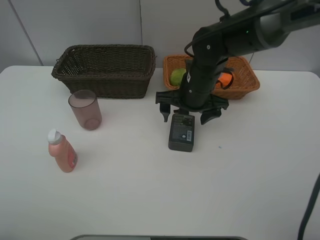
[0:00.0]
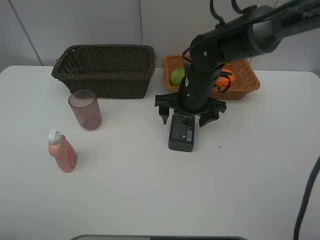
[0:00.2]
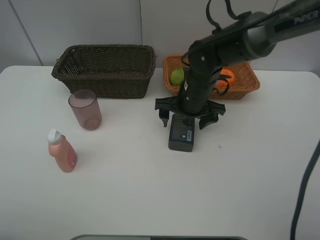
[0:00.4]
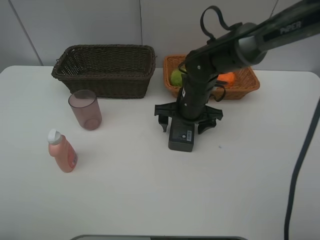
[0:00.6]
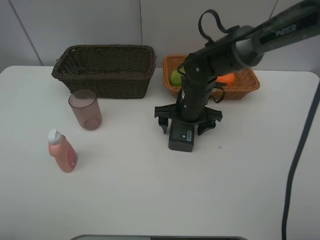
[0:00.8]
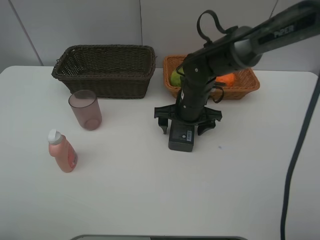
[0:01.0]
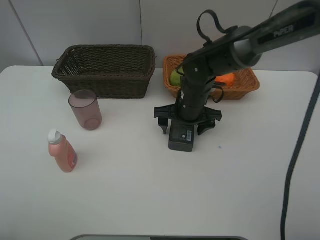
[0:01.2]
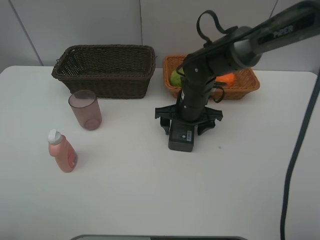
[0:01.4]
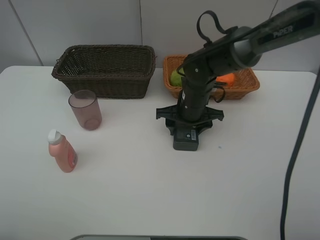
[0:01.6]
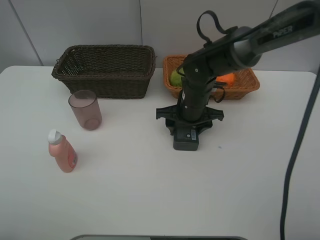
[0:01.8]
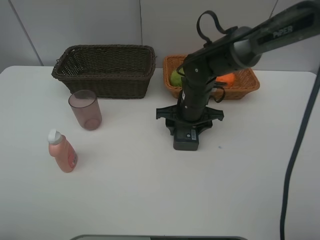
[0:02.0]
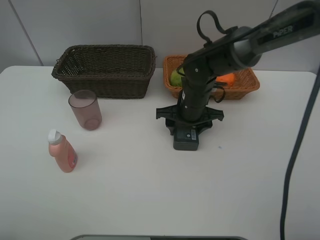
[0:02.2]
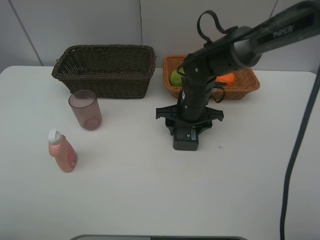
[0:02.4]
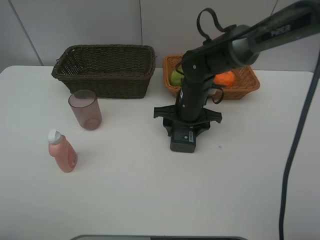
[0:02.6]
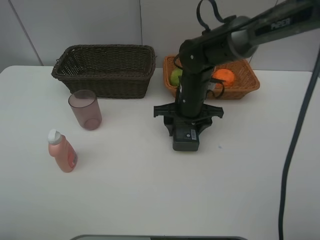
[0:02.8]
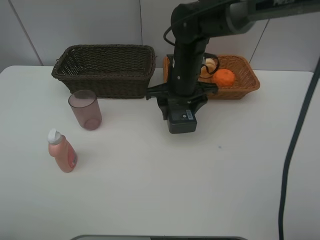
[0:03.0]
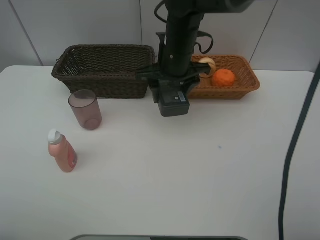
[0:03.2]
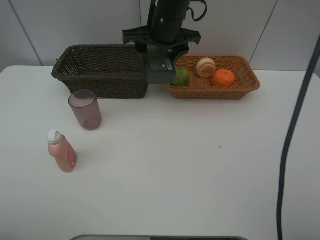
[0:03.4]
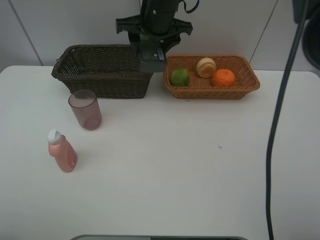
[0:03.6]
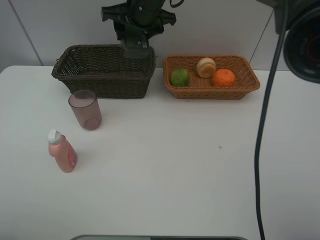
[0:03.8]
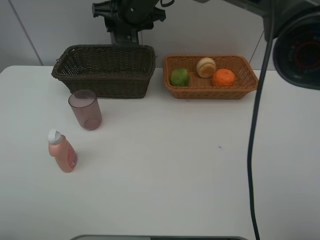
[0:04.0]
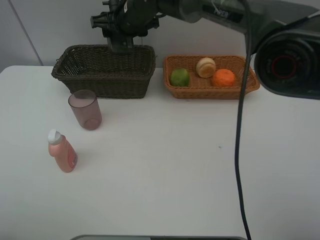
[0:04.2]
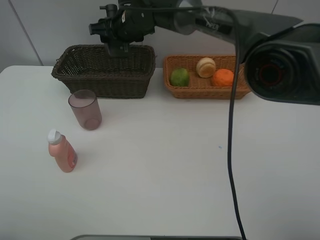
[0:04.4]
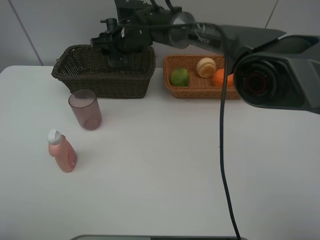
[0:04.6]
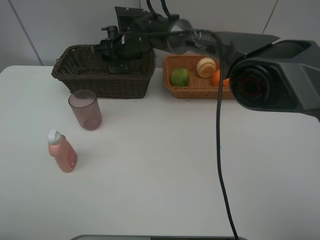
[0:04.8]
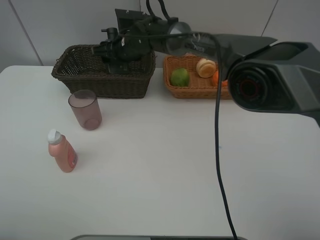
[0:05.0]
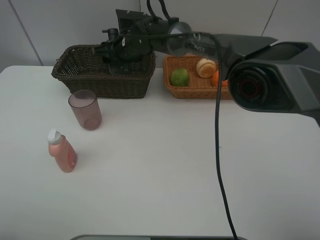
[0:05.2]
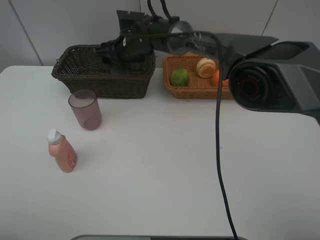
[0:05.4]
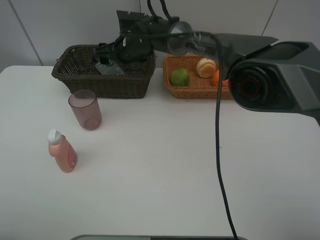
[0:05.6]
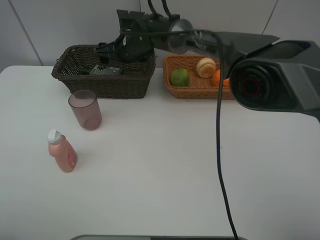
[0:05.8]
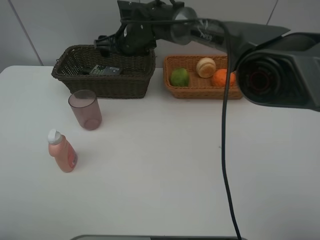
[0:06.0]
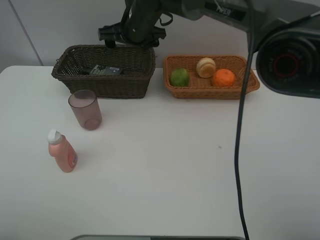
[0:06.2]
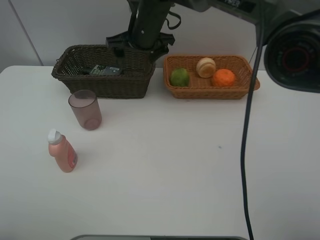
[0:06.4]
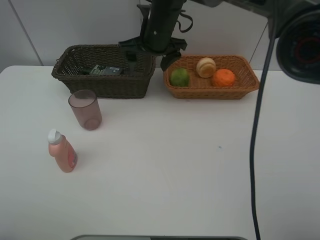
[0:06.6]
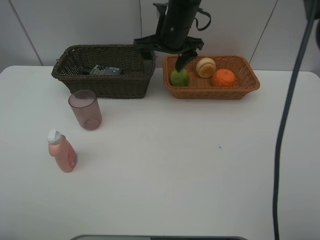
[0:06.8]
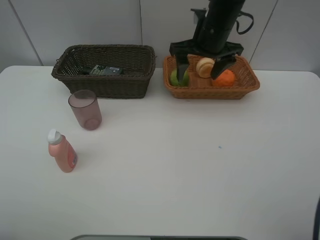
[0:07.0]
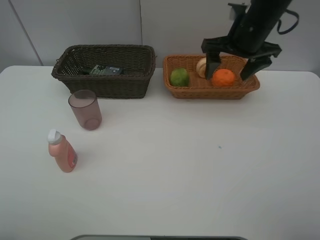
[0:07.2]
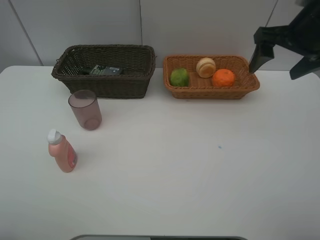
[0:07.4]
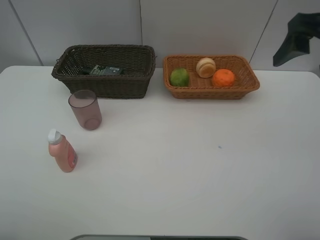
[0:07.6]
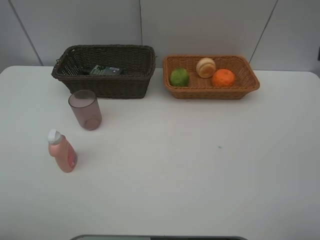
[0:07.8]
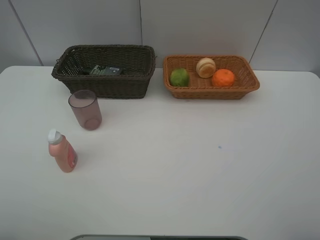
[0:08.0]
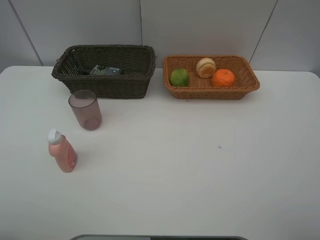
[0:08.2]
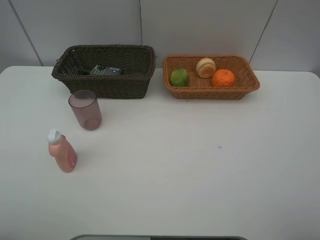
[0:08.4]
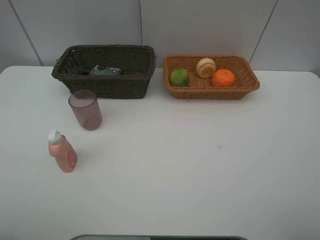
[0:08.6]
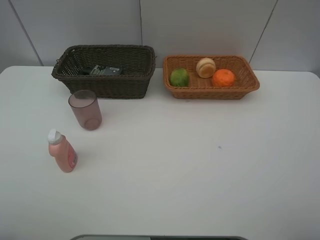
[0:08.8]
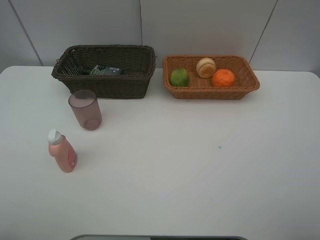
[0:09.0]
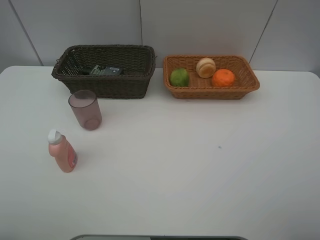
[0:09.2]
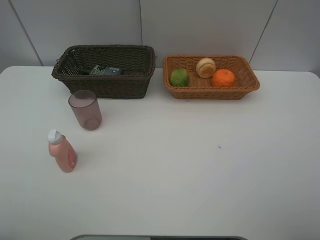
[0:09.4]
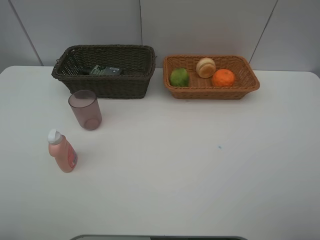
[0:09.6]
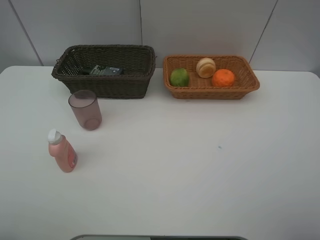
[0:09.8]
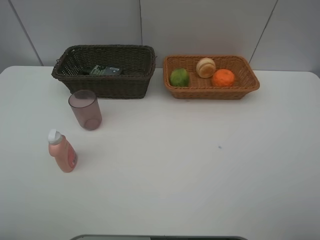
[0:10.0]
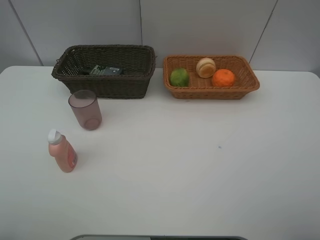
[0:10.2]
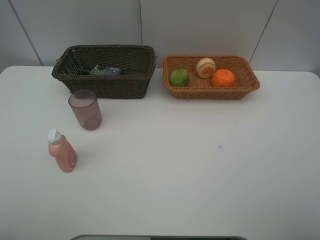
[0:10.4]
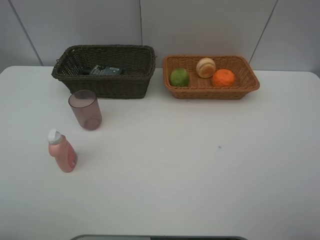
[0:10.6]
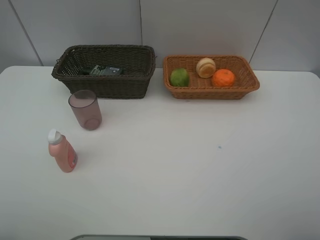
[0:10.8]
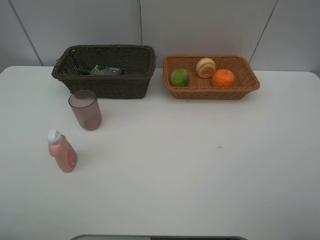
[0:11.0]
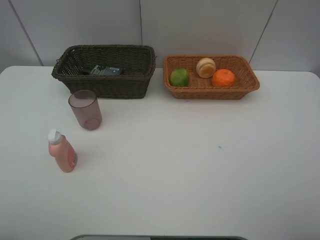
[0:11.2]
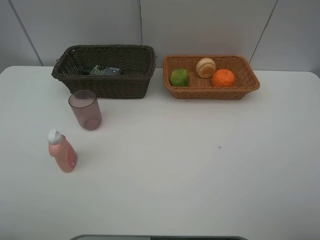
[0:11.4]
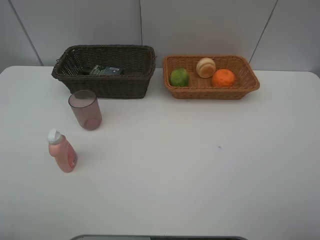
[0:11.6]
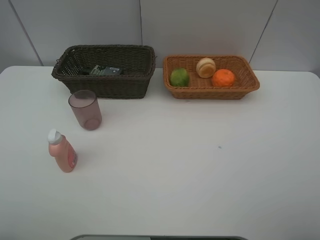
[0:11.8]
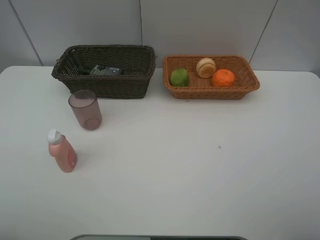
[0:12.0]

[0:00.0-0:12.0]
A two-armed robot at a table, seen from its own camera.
Task of the whole recording: place multiple objects separately in different baskets.
0:00.0 to 0:01.6: The right gripper moves downward, some 5 cm, and closes.
0:01.6 to 0:03.0: The right gripper heads upward, covering about 10 cm.
0:03.0 to 0:04.4: The right gripper heads to the left and forward, covering approximately 15 cm.
0:04.4 to 0:06.0: The right gripper opens.
0:06.0 to 0:07.6: The right gripper goes about 40 cm to the right, backward and upward.
0:07.6 to 0:09.0: The right gripper travels backward by roughly 25 cm.
0:10.4 to 0:12.0: The two grippers keep their place.

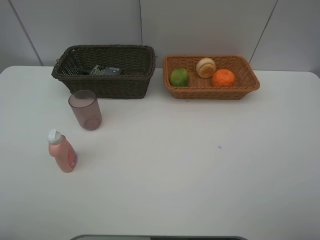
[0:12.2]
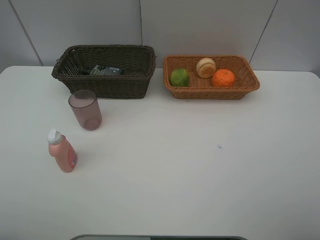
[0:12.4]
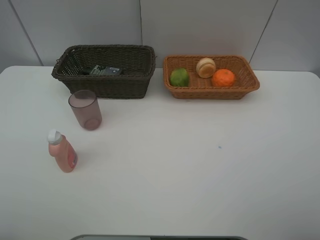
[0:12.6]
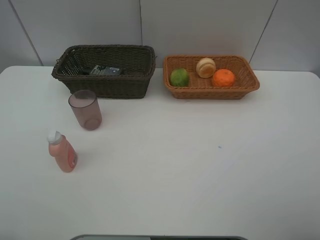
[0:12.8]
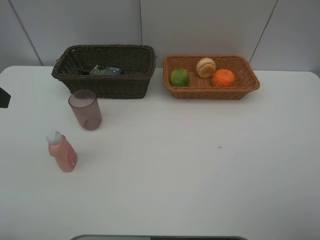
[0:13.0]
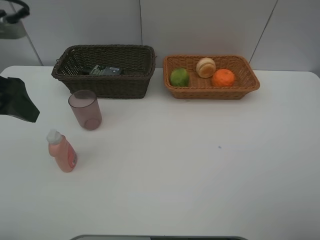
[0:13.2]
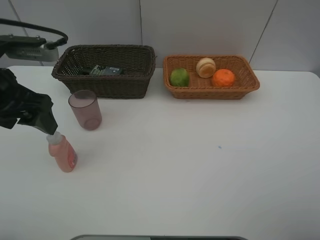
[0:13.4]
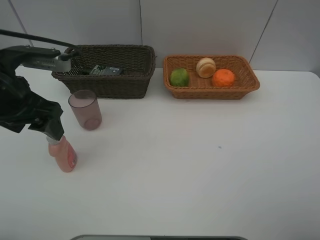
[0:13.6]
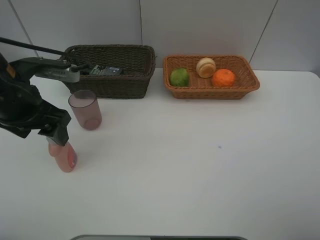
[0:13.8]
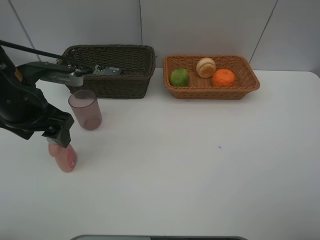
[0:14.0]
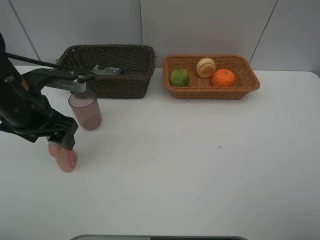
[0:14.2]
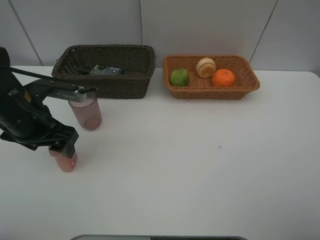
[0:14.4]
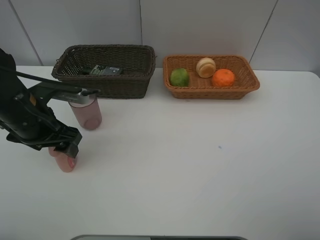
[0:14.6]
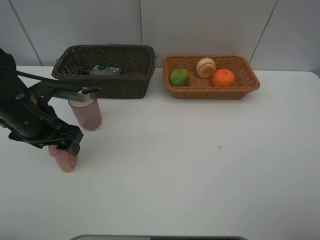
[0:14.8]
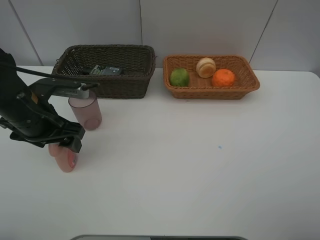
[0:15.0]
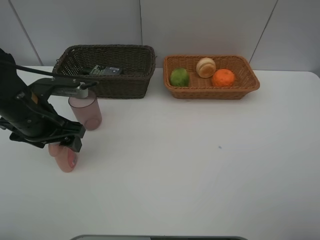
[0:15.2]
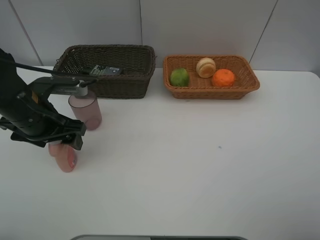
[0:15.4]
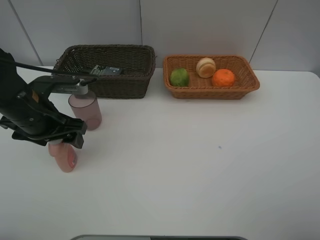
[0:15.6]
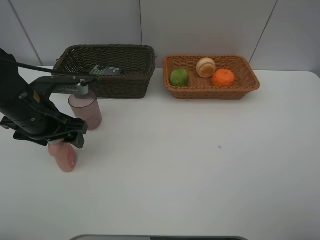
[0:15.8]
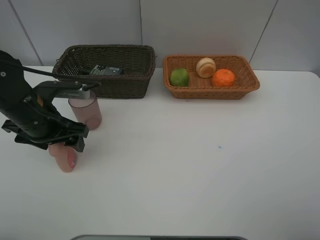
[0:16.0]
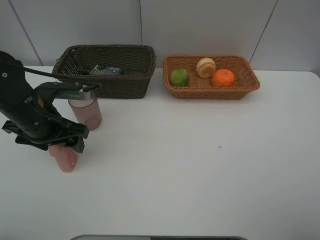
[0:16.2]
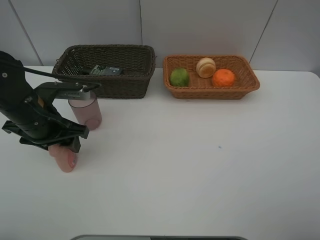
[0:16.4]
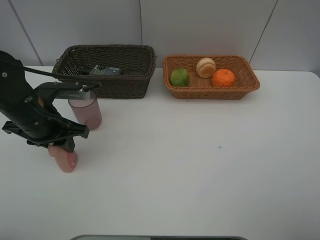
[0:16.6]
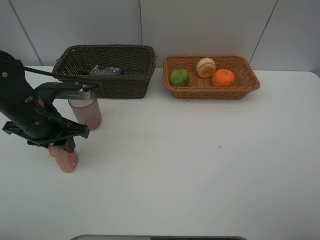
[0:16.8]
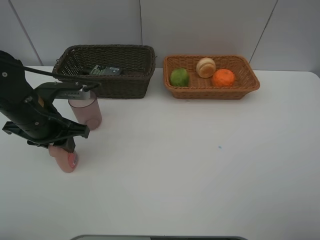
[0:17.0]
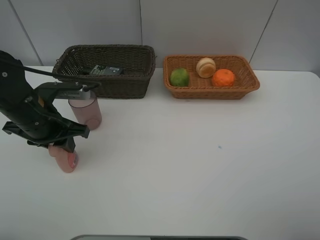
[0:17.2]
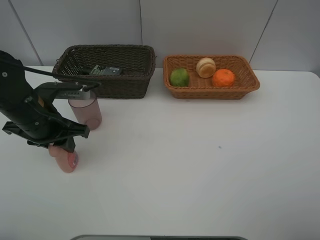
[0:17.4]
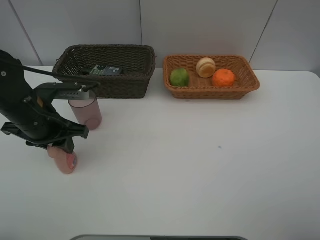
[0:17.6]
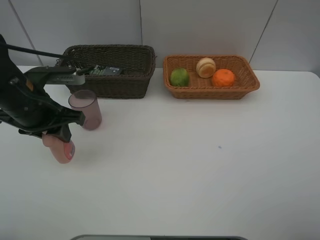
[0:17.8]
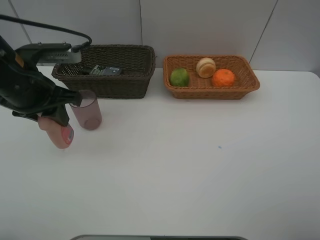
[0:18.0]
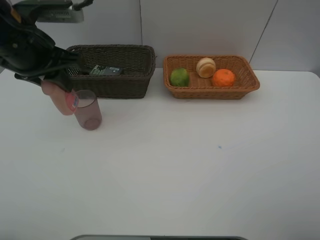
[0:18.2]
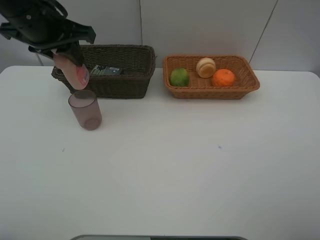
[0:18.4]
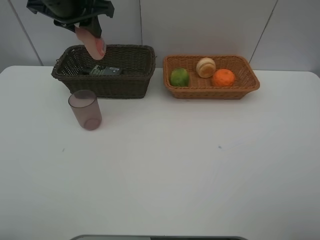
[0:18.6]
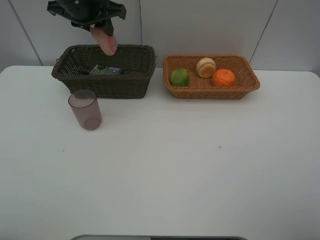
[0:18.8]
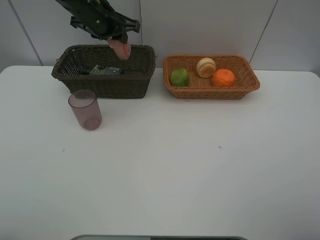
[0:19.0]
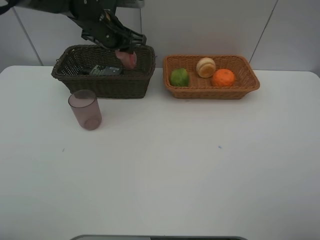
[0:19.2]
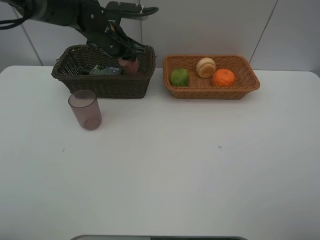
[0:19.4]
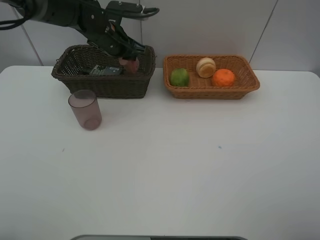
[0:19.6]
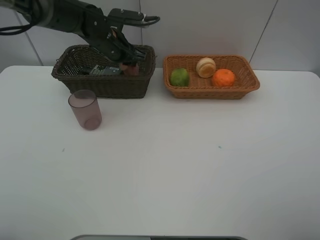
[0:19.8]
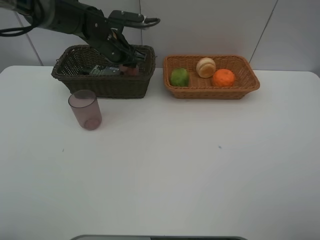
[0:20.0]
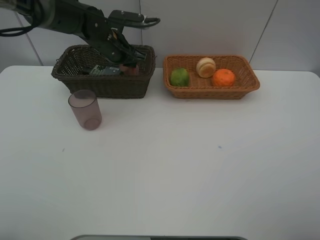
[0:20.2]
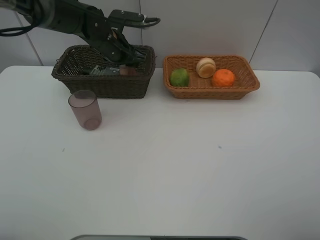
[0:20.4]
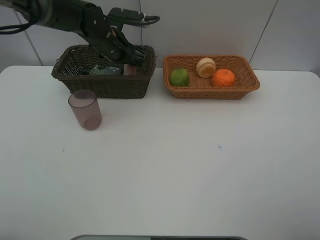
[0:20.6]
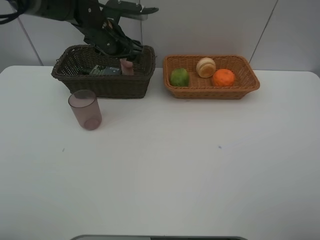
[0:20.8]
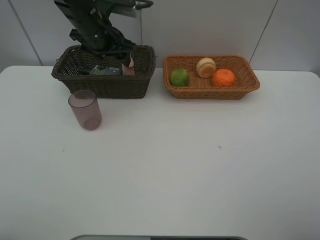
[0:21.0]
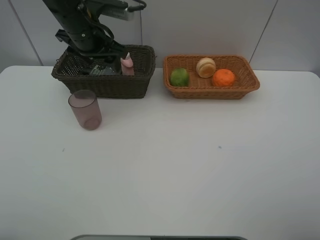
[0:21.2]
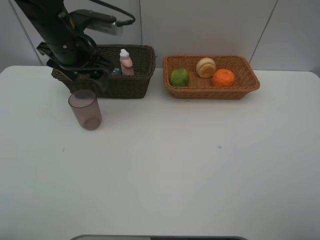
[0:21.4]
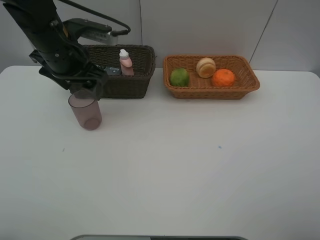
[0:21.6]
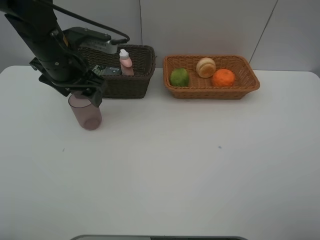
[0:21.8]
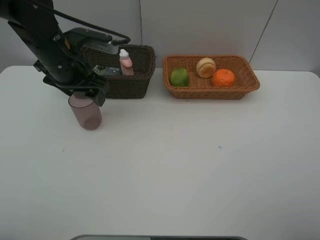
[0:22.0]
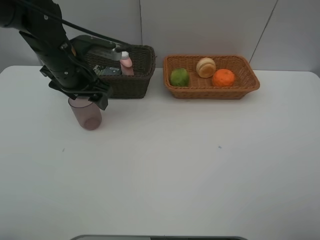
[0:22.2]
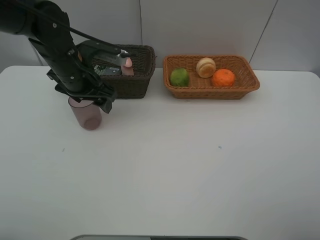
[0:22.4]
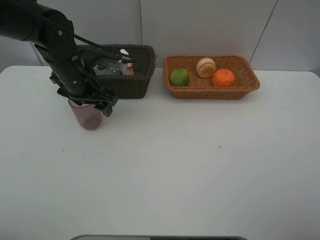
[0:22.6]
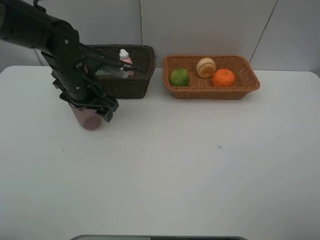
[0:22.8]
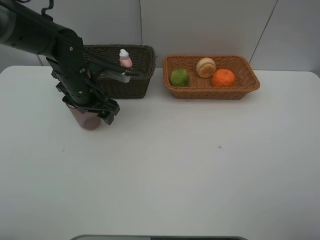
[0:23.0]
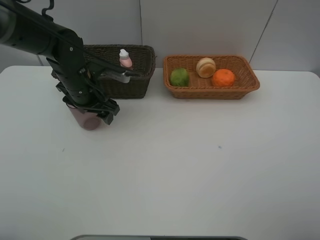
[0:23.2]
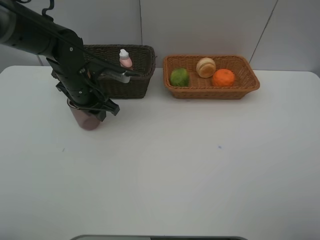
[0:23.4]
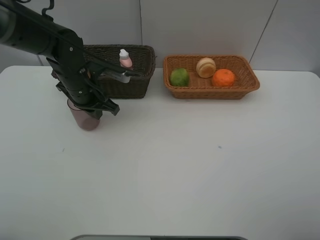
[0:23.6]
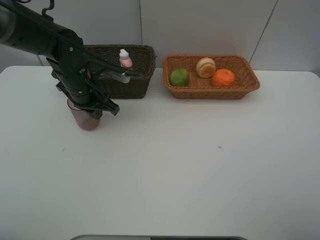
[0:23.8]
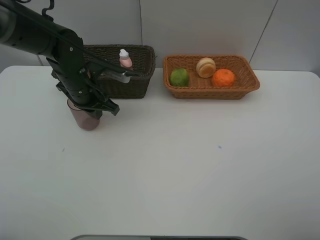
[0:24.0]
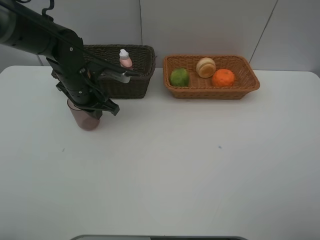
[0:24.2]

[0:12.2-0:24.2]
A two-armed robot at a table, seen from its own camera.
Task of the whole recording: place multiple objects separately in different baskets.
0:12.2 to 0:13.8: The left gripper moves forward, about 25 cm.
0:13.8 to 0:15.2: The left gripper moves downward, approximately 5 cm.
0:15.2 to 0:16.6: The left gripper closes its fingers.
0:16.6 to 0:18.2: The left gripper moves upward, approximately 15 cm.
0:18.2 to 0:19.8: The left gripper goes about 20 cm forward, downward and to the right.
0:19.8 to 0:21.2: The left gripper shifts roughly 10 cm upward and backward, and opens up.
0:21.2 to 0:22.6: The left gripper moves downward, some 5 cm.
0:22.6 to 0:24.2: The left gripper closes its fingers.
